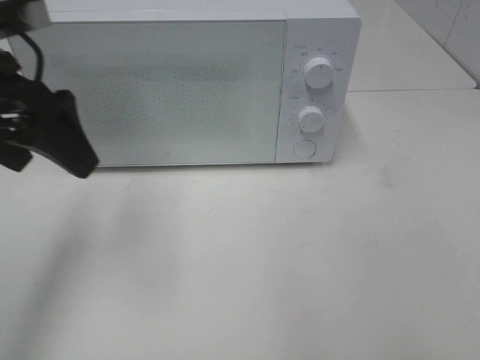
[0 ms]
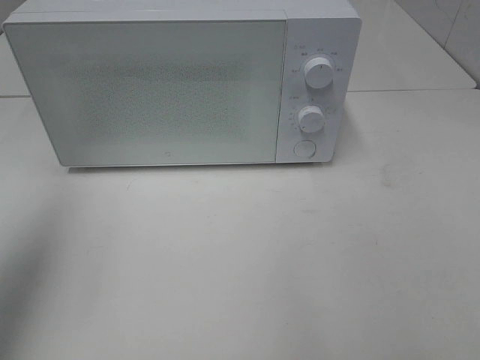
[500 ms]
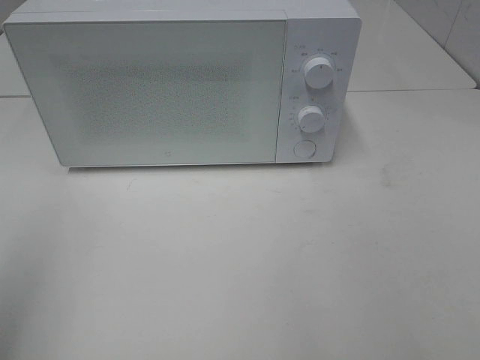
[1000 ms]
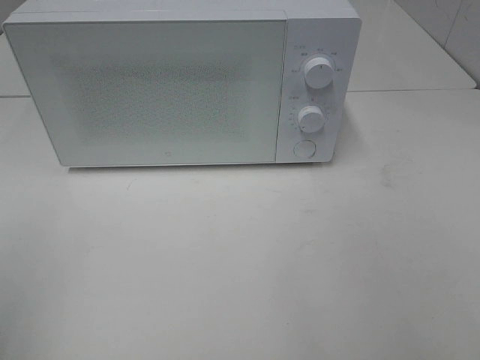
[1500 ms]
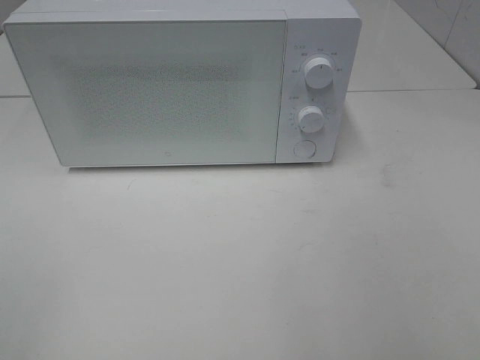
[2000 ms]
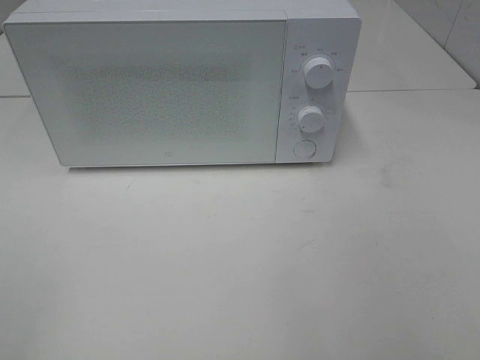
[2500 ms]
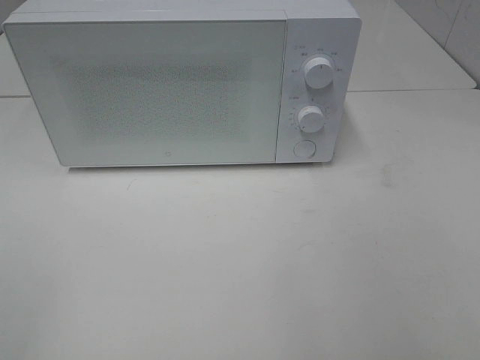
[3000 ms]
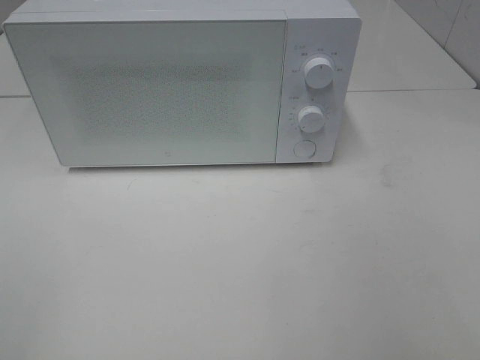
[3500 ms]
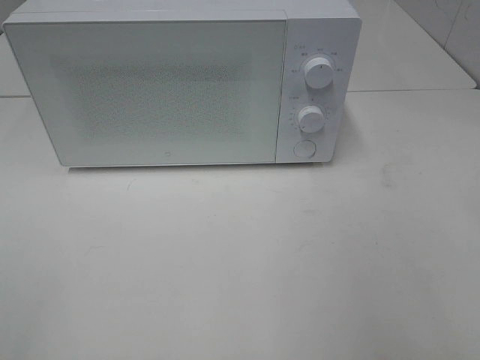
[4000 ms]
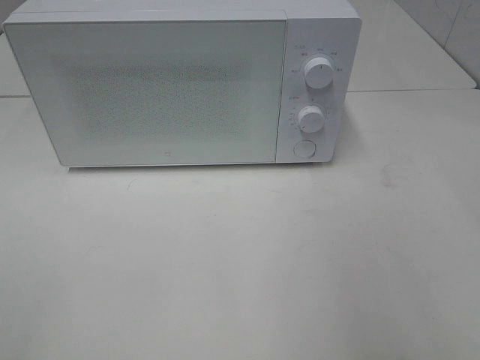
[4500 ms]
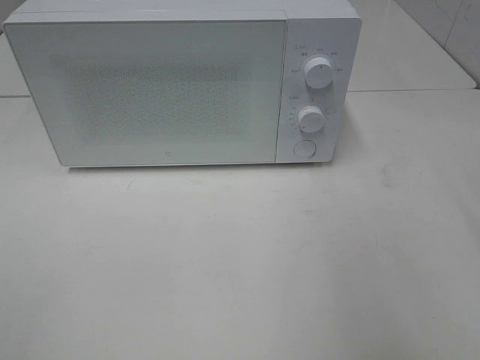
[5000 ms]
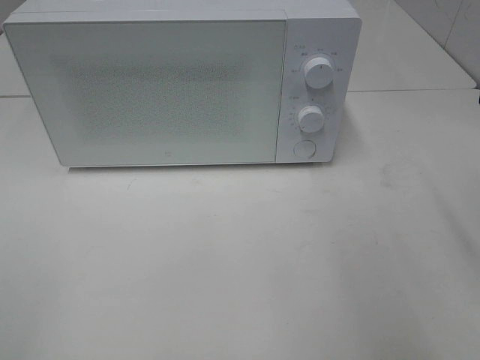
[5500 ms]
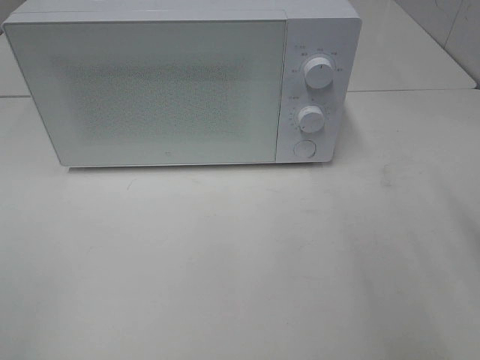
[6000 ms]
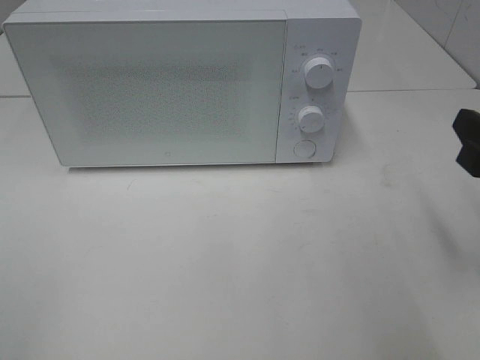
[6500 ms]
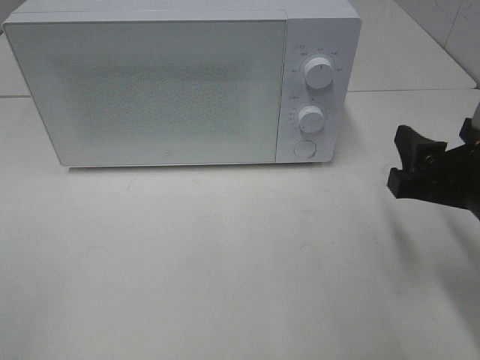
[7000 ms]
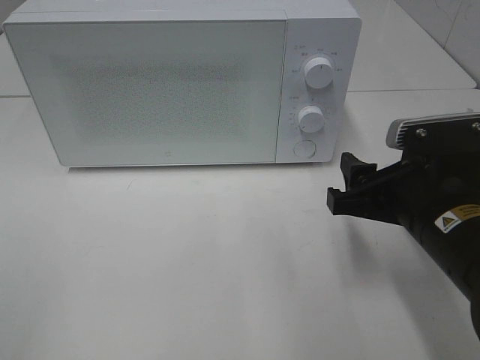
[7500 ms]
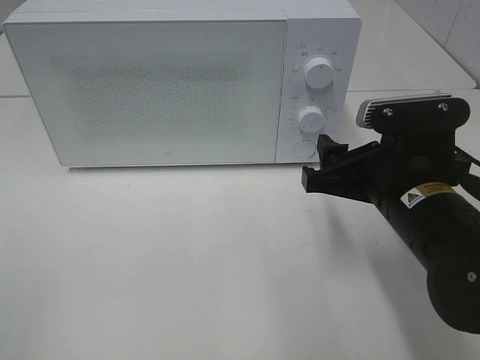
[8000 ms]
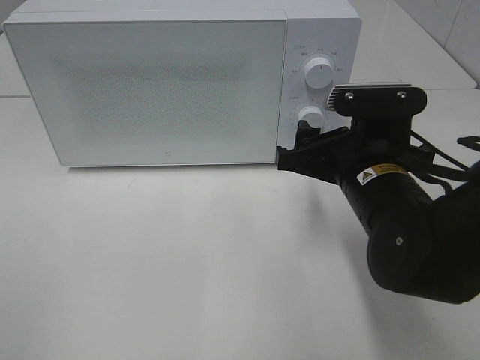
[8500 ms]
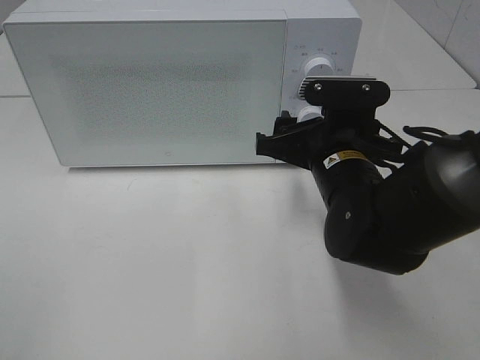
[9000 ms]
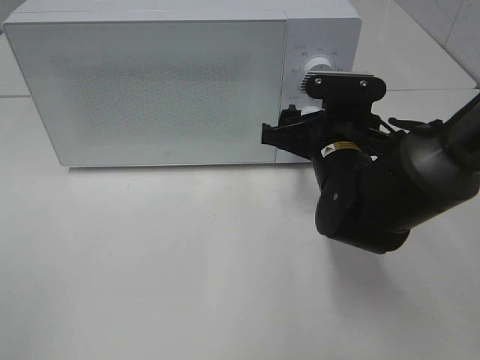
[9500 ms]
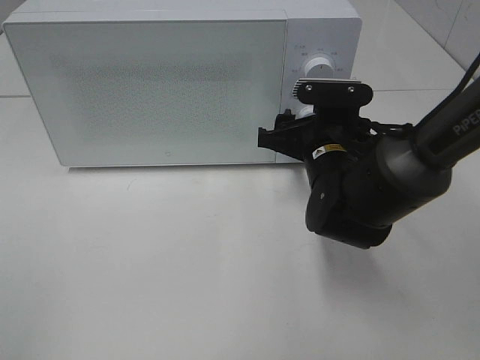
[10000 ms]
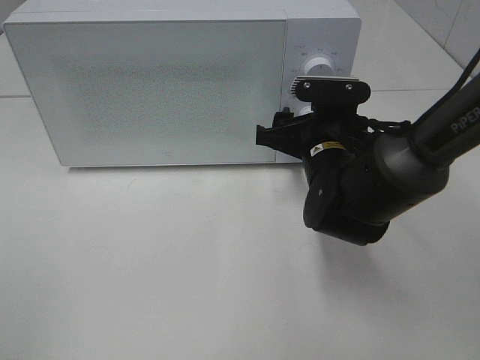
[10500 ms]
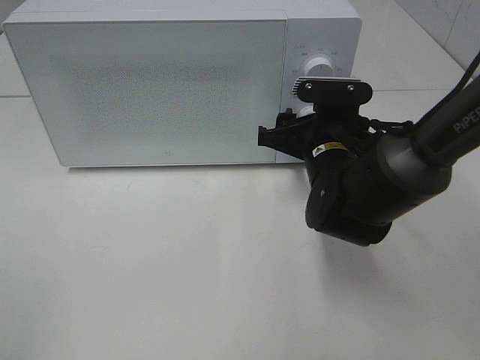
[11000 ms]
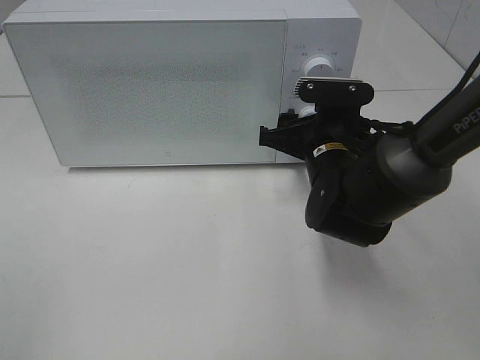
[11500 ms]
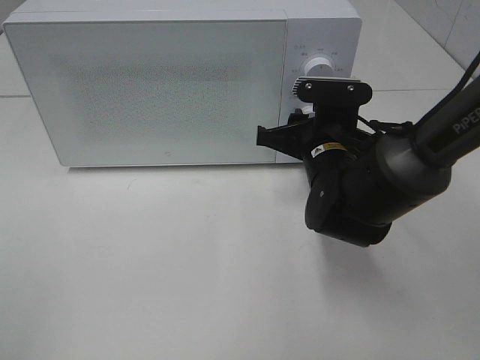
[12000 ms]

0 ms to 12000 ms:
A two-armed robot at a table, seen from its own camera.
Task of the whole recording: Heat the burger.
0 ms to 2000 ms: The left gripper heads backward, covering some 25 cm.
6000 ms to 8000 ms: The right gripper goes some 15 cm to the left, downward and forward.
8000 ms to 10000 ms: The right gripper moves forward, approximately 10 cm.
10000 ms to 12000 ms: The two grippers keep their place.

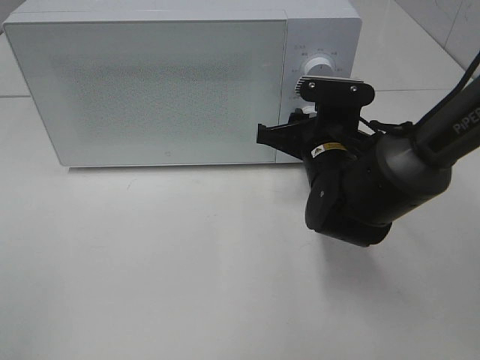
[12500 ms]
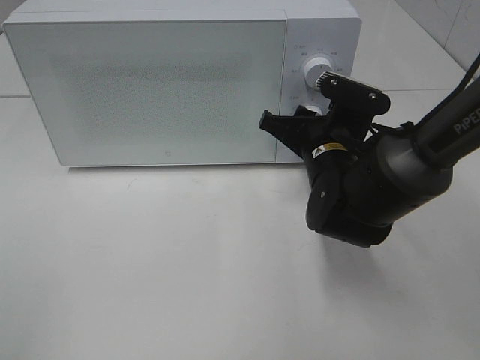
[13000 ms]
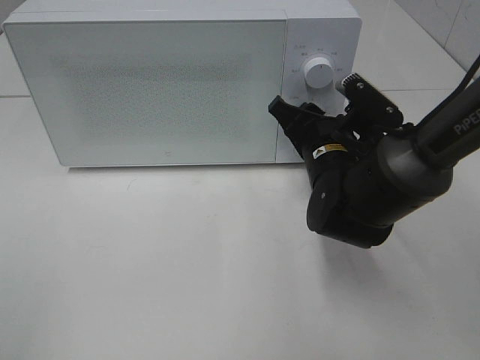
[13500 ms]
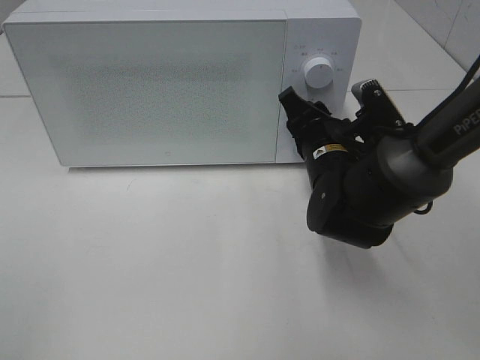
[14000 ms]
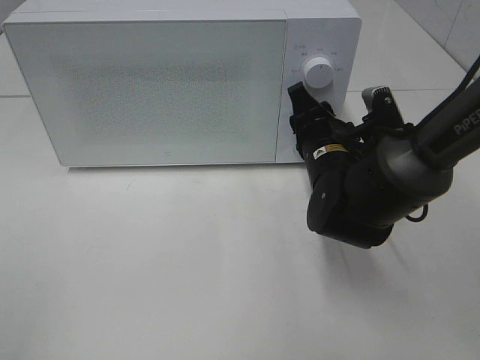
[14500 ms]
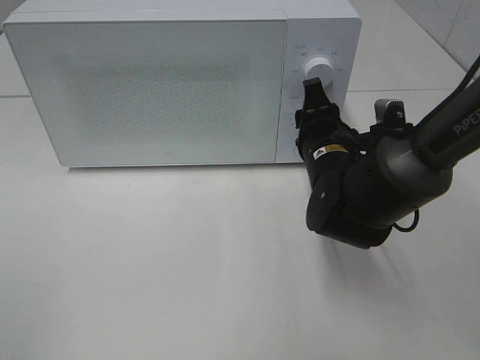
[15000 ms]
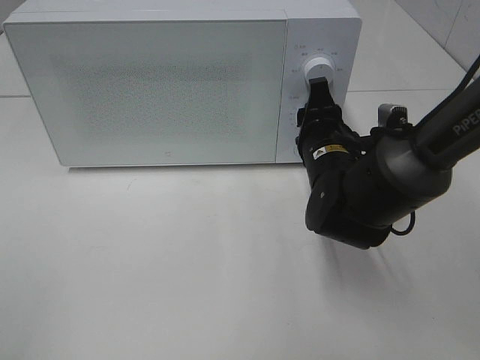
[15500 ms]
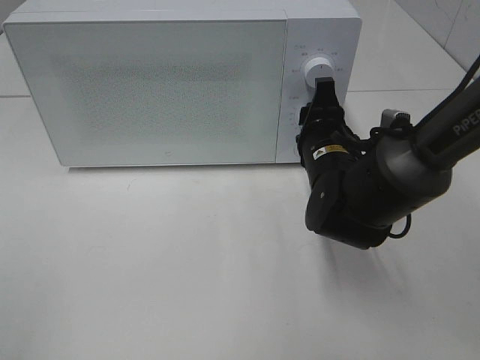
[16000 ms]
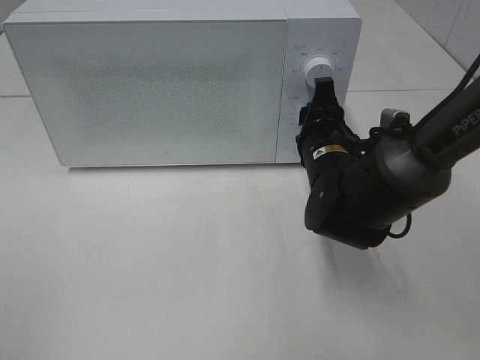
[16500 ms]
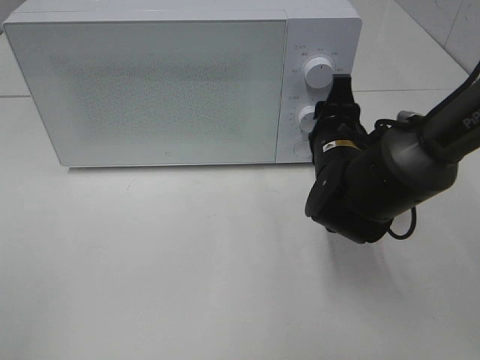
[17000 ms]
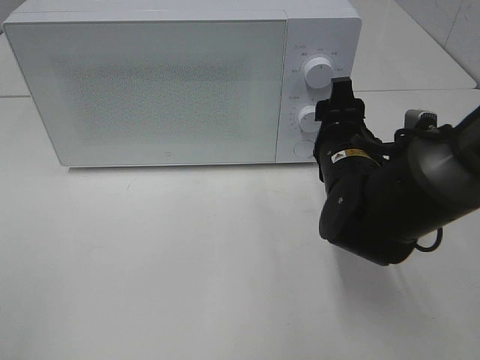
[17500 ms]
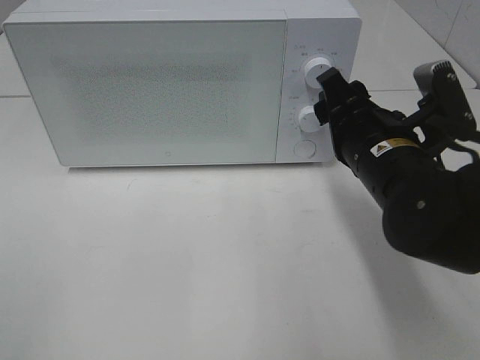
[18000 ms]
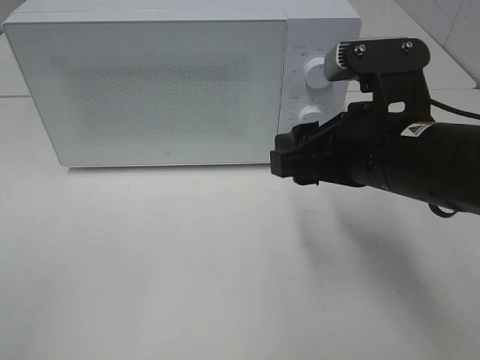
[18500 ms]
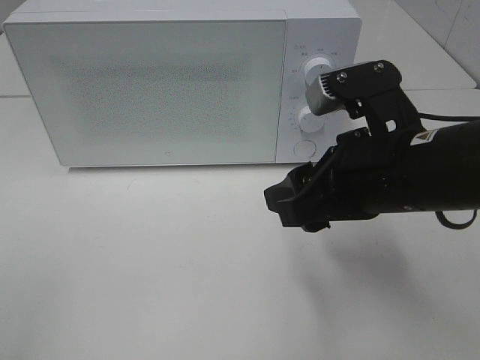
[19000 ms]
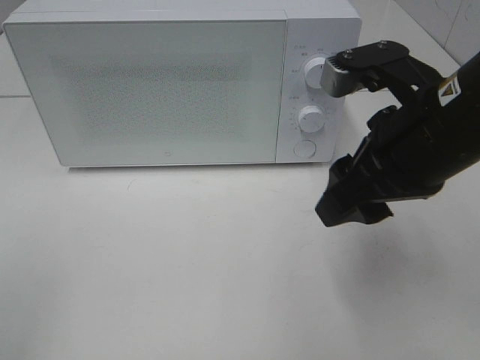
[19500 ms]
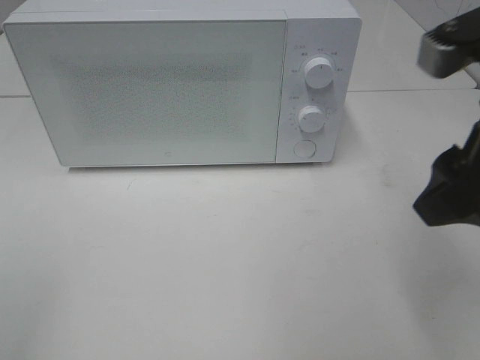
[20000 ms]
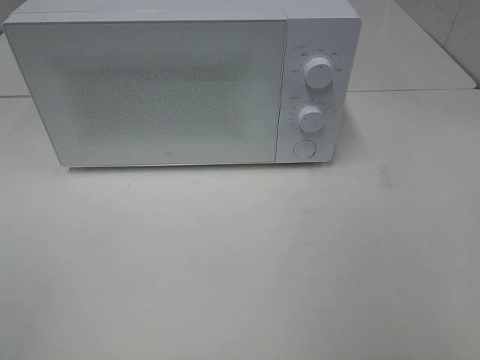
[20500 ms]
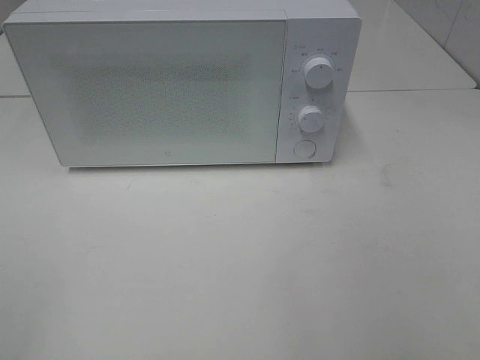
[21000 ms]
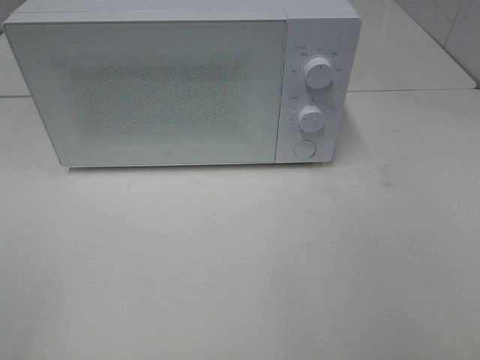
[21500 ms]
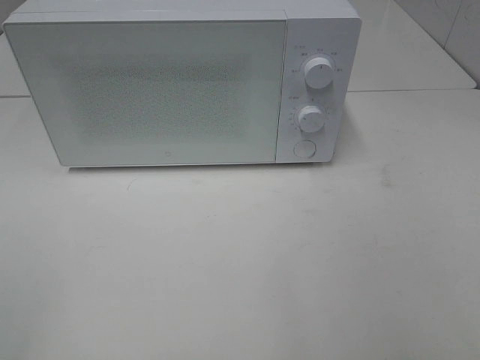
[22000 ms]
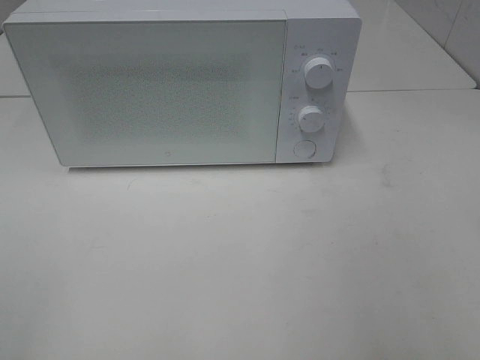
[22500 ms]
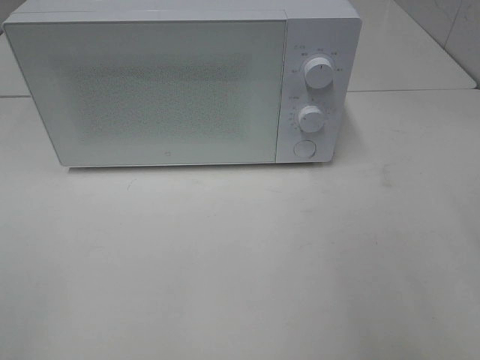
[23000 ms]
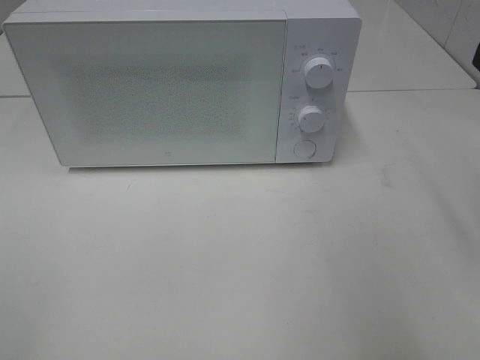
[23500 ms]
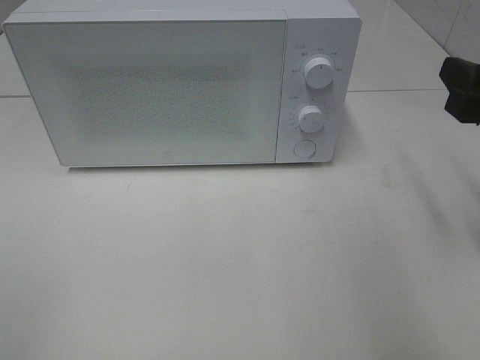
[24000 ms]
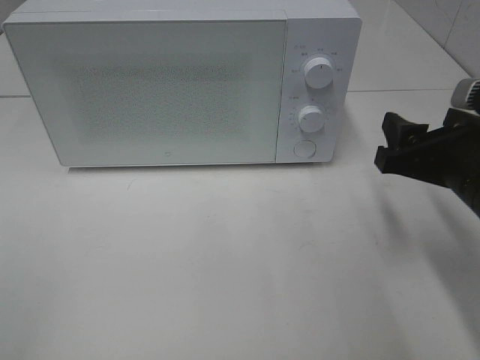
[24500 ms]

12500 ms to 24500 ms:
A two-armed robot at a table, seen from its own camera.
Task of the whole recording: Heat the burger.
Step, 12500 ms to 17000 ms: Right hand: twist timer button.
16500 ms to 18500 ms: The right gripper shifts roughly 15 cm backward and upward.
18500 ms to 20500 ms: The right gripper goes some 25 cm backward, to the right and upward.
22500 ms to 24500 ms: The right gripper travels forward and downward by roughly 20 cm.

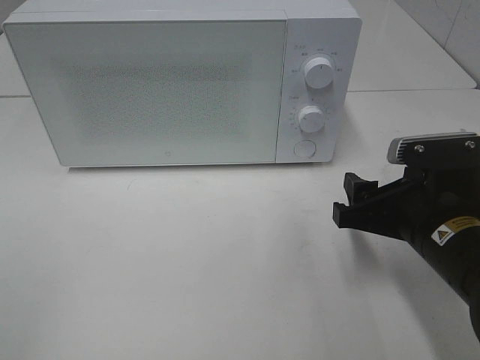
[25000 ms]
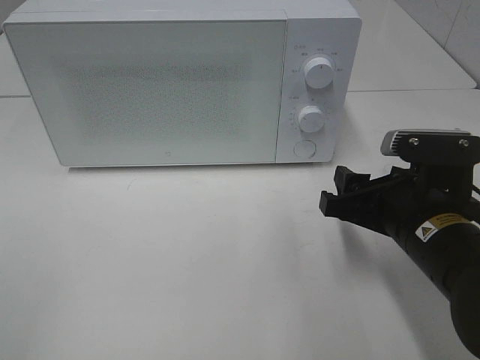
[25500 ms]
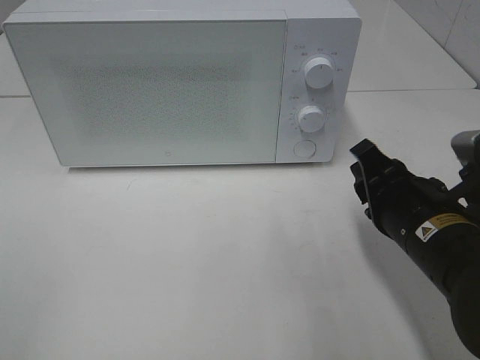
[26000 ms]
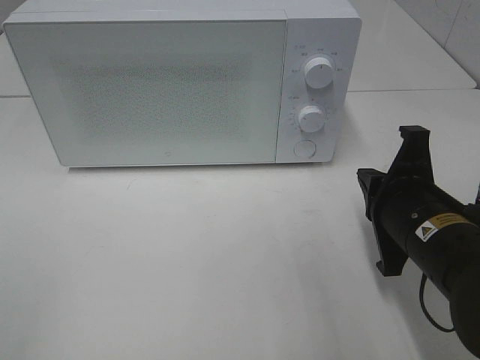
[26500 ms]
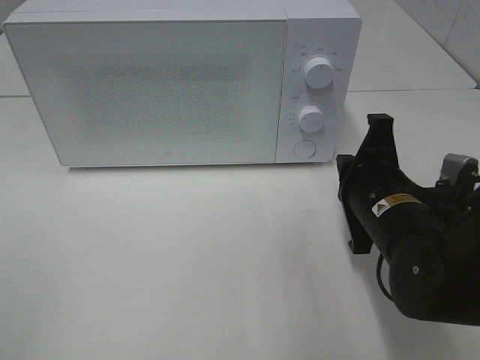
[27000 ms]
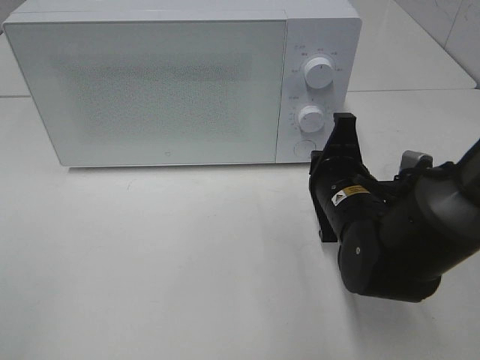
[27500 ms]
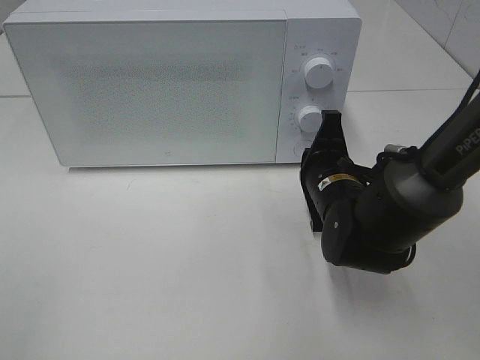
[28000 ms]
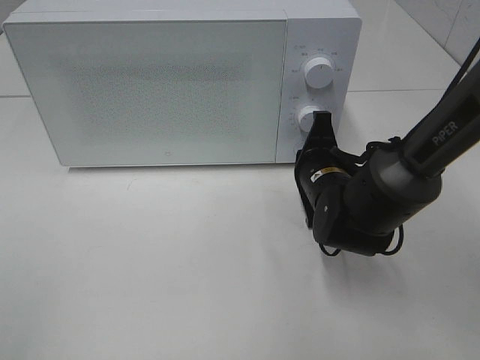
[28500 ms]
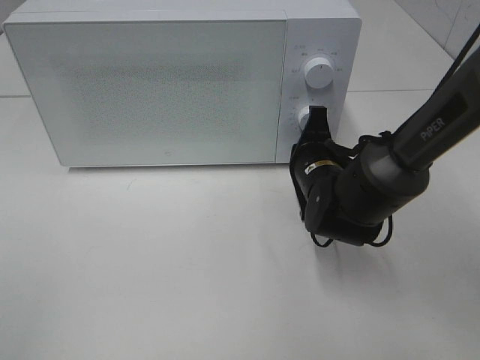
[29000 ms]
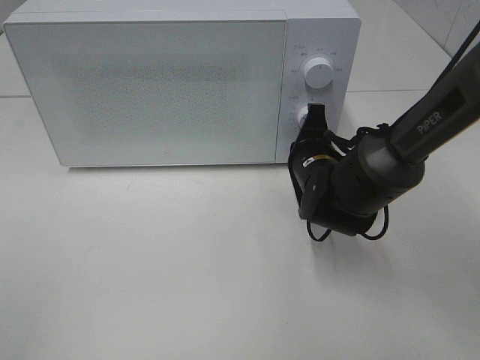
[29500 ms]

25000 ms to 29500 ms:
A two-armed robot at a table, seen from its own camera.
Task of the whole recording: Heat the burger.
25000 ms to 27000 ms: The right gripper ends up about 5 cm from where it was, and closes.
27000 ms to 29500 ms: The right gripper goes some 10 cm forward.
